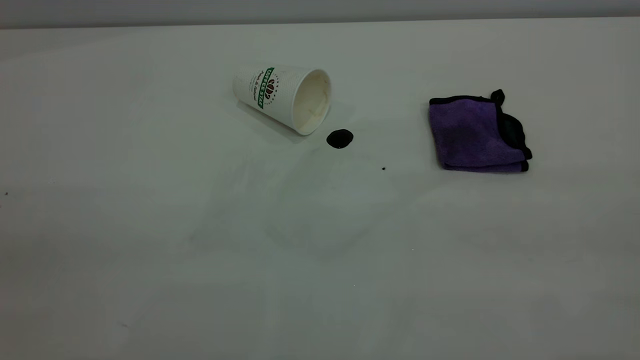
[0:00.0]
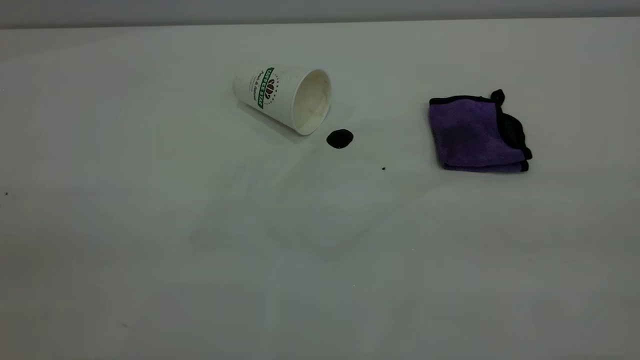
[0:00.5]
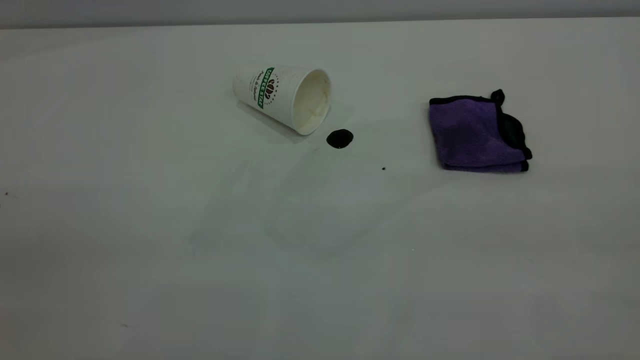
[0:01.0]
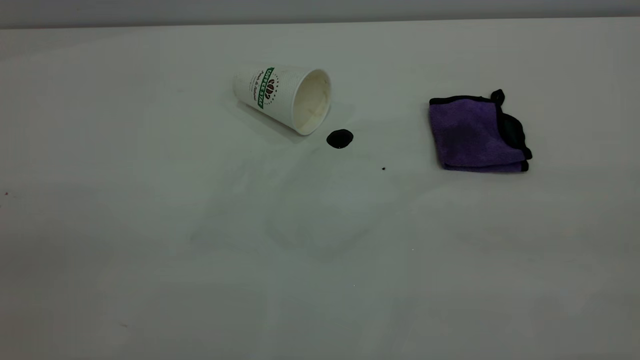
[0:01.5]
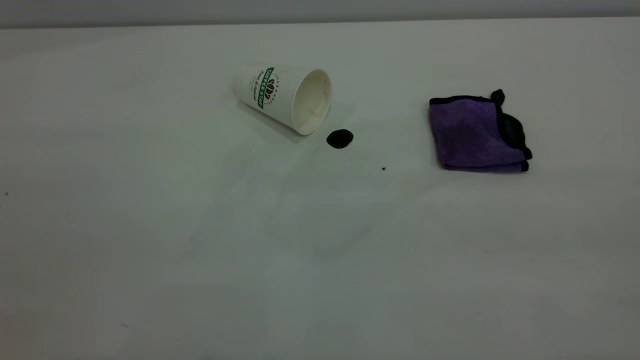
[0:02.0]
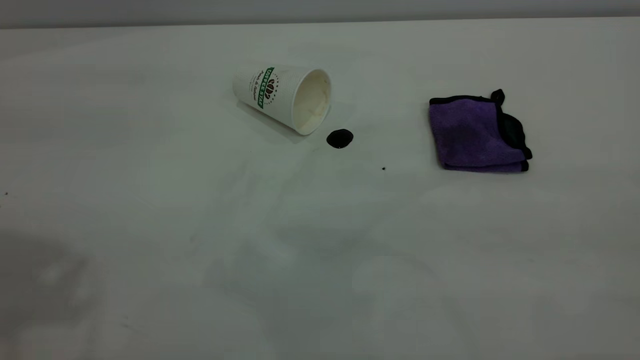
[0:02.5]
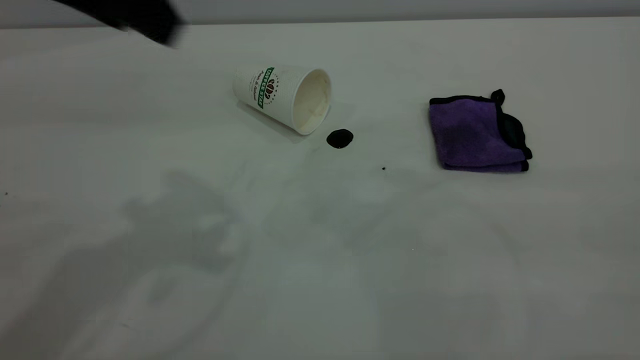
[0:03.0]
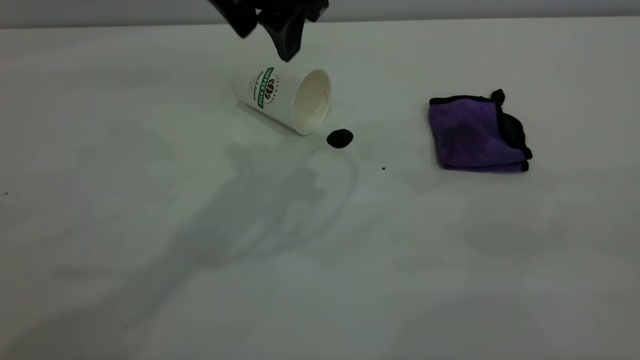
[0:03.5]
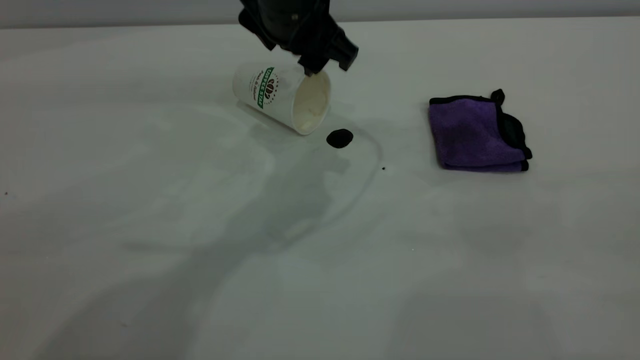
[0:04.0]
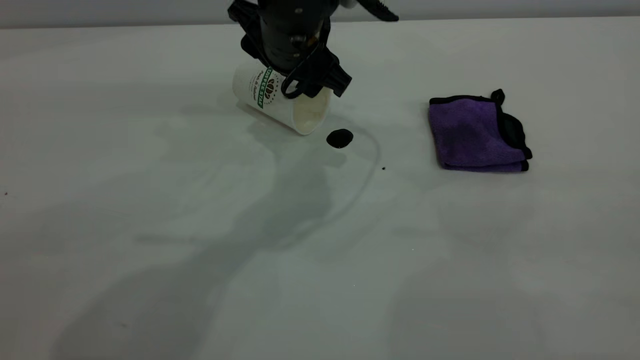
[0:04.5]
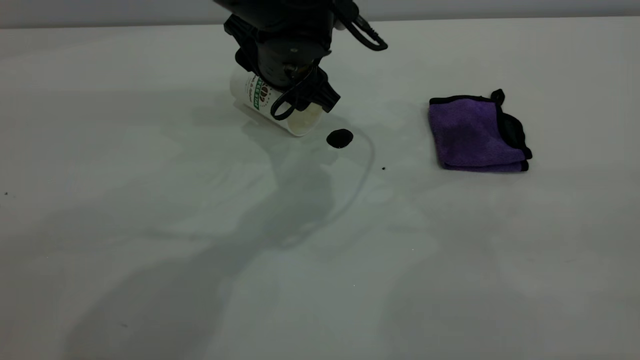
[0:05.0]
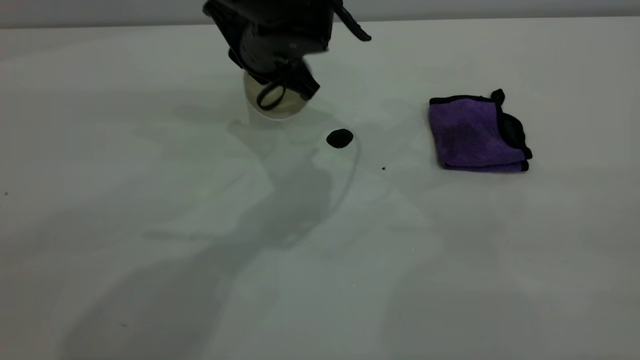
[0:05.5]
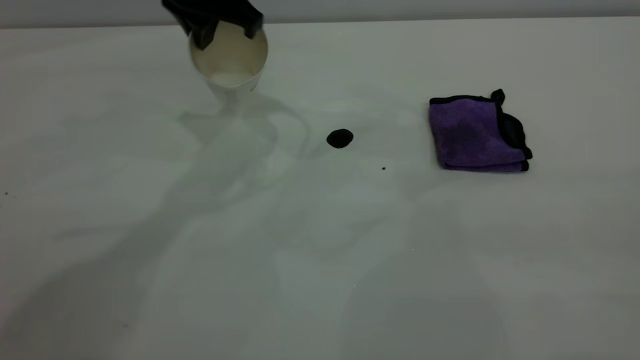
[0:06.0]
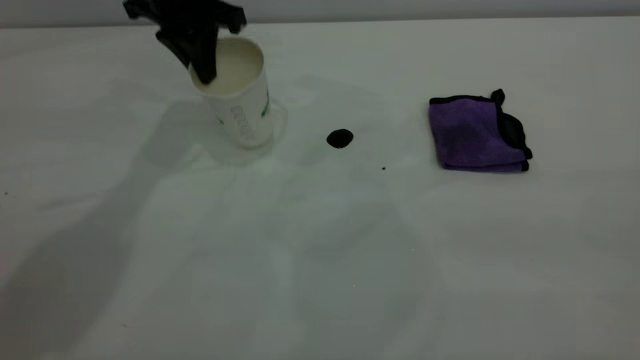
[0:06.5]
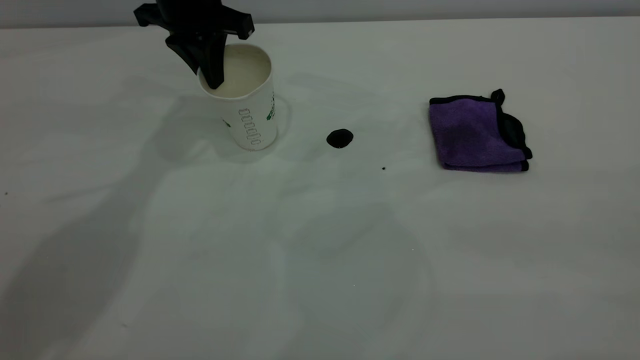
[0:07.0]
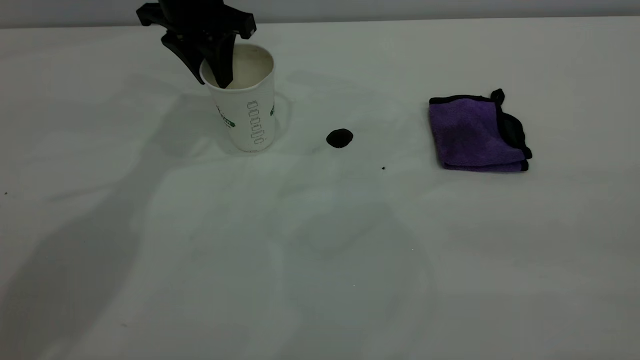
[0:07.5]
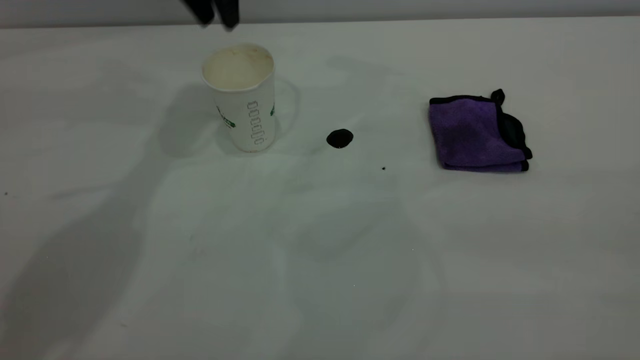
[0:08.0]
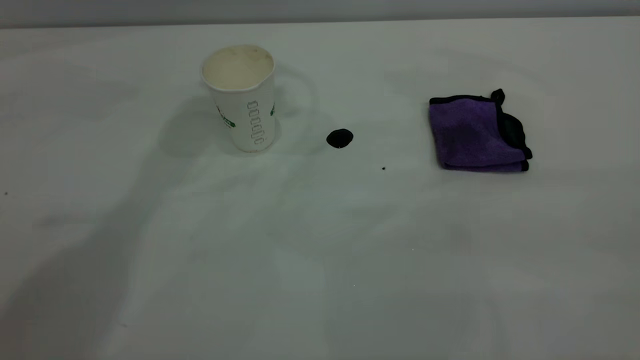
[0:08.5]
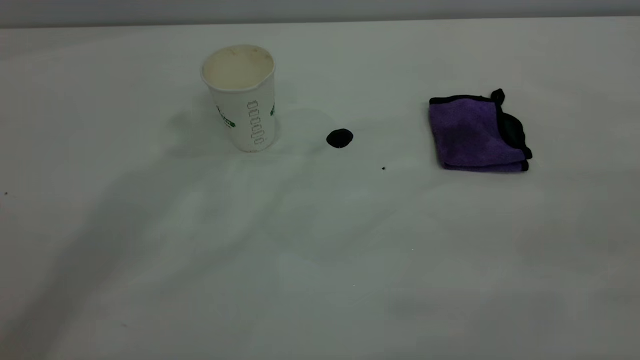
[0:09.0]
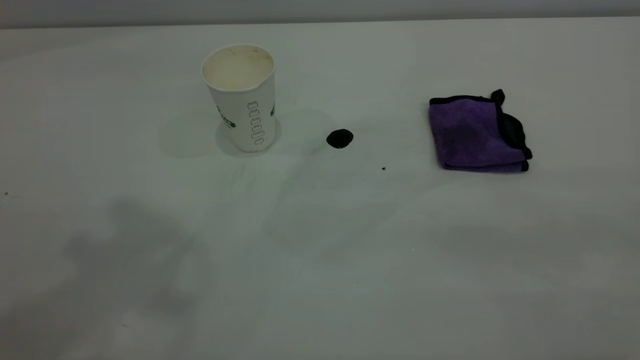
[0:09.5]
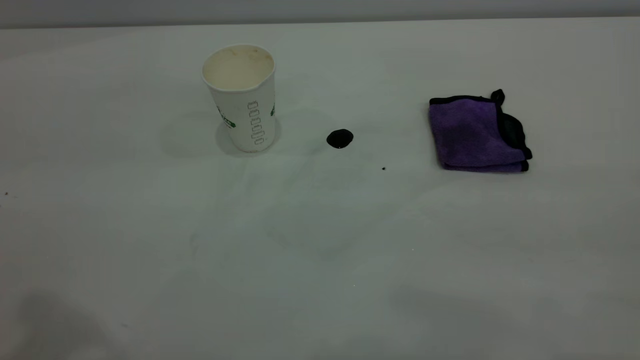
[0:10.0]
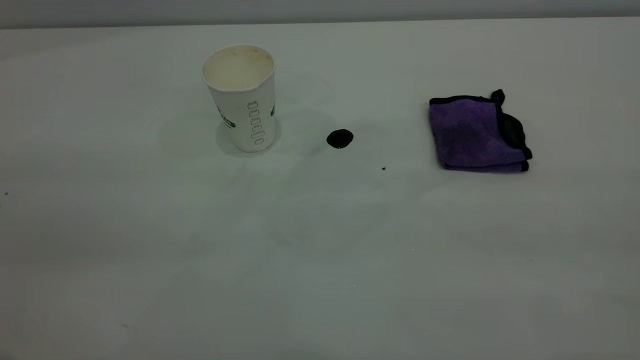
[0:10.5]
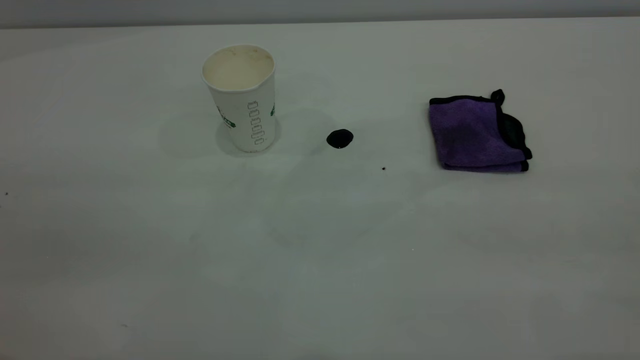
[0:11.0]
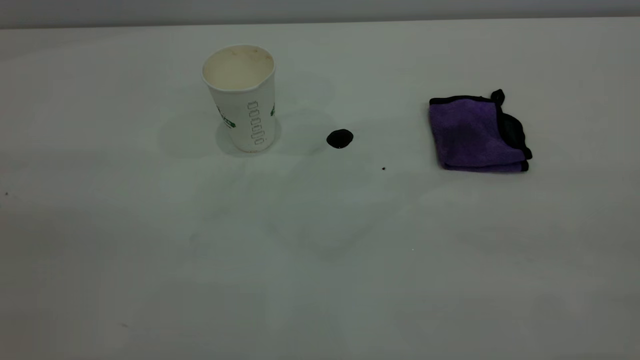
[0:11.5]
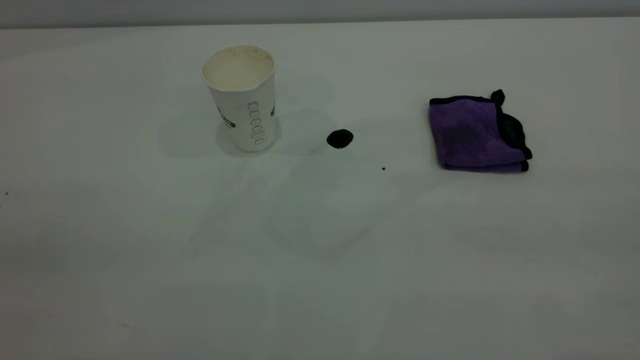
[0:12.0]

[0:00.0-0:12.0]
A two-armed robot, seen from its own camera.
Task of the whole recording: the left gripper pick up the fallen cup and place it upright, the right gripper grasp the purple rag and wipe the coffee stain on the table, the right gripper put the purple rag back in its original position.
Step, 0:00.0 to 0:07.5: Stand the paper cup upright.
0:02.0 to 0:04.0: The left gripper shifts some 50 cm forward, to the right and downward.
0:04.0 to 0:06.0: The left gripper is displaced to the left by some 10 cm, and closes its fingers.
0:06.0 to 0:08.0: The left gripper goes roughly 5 cm forward, and opens its fingers.

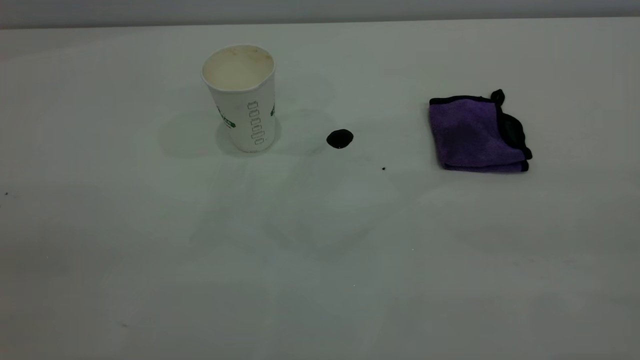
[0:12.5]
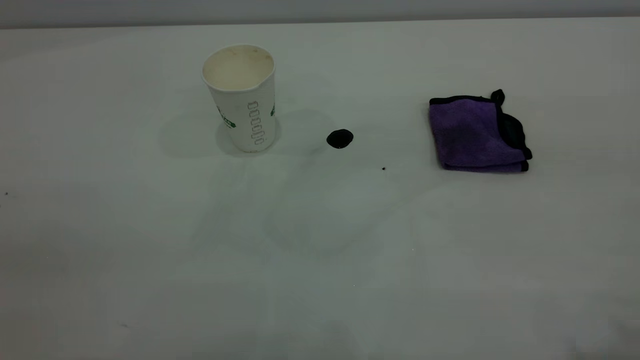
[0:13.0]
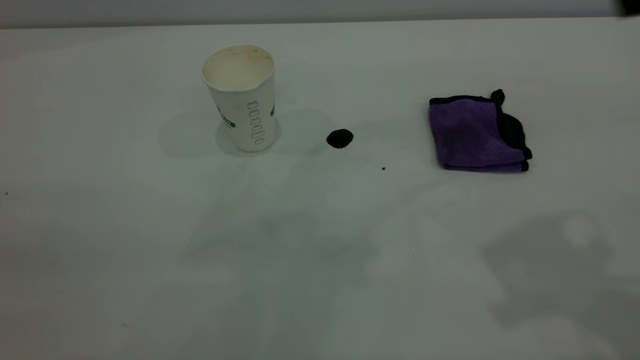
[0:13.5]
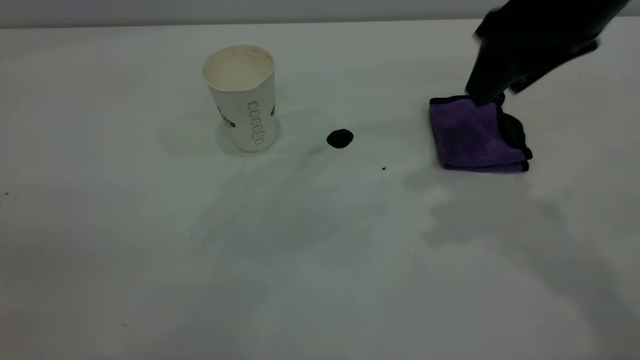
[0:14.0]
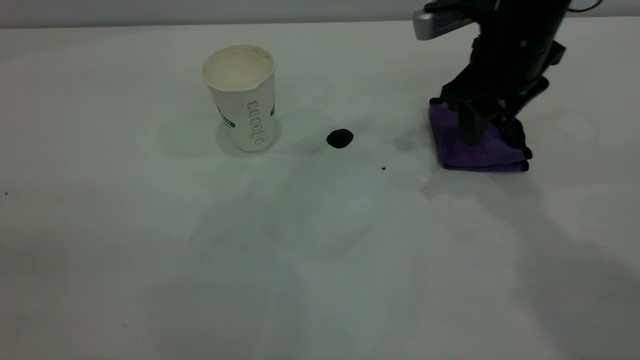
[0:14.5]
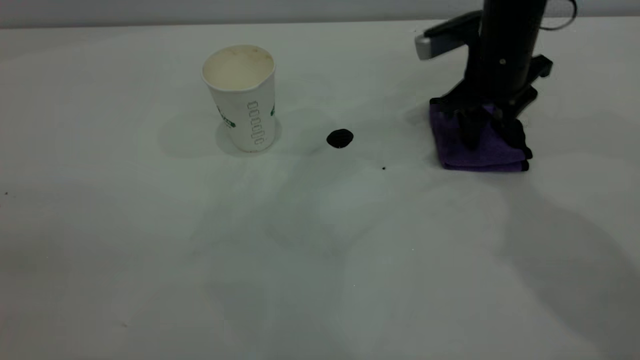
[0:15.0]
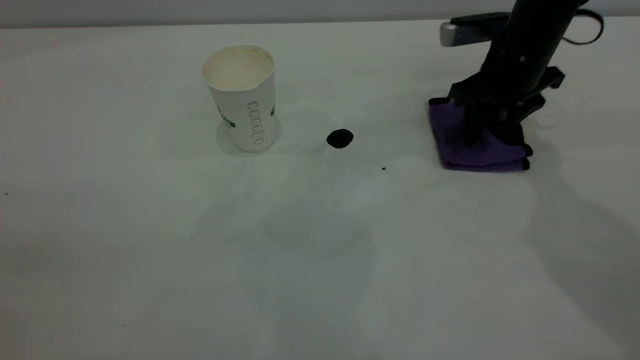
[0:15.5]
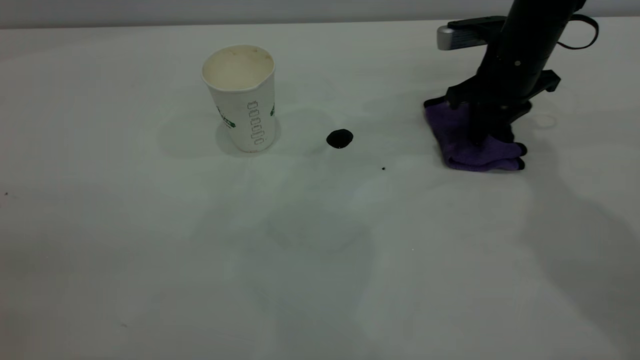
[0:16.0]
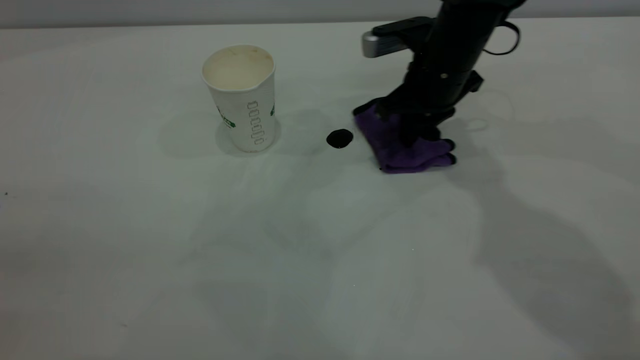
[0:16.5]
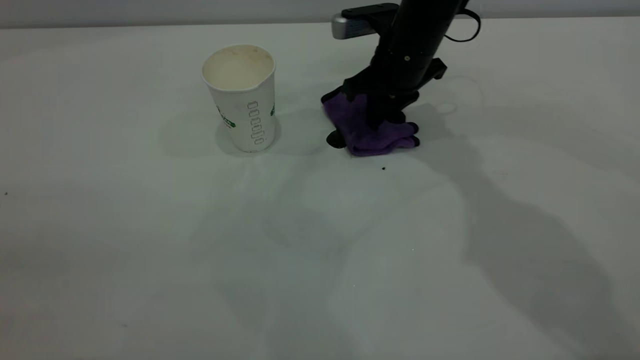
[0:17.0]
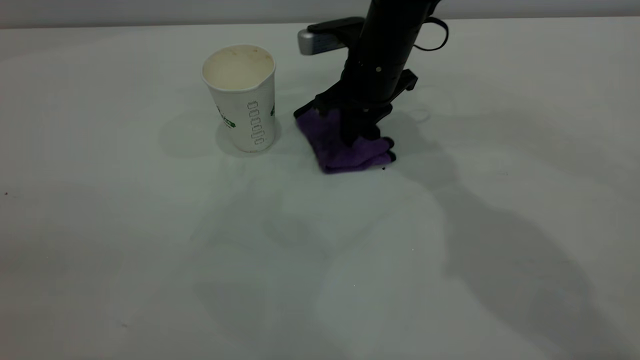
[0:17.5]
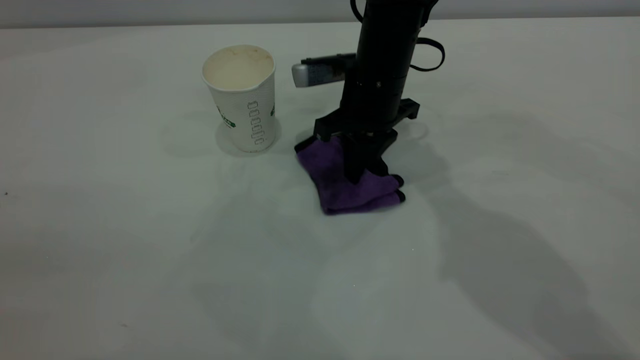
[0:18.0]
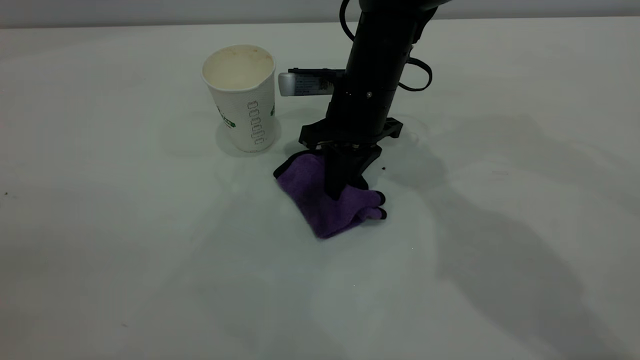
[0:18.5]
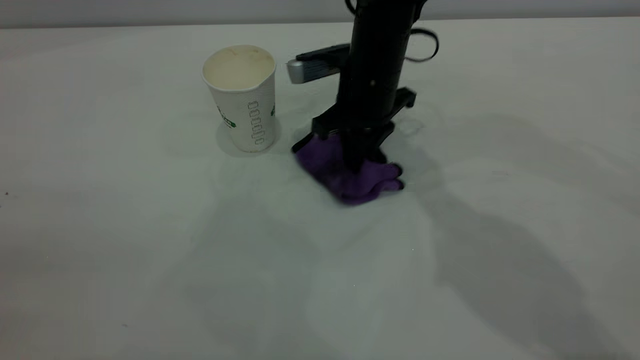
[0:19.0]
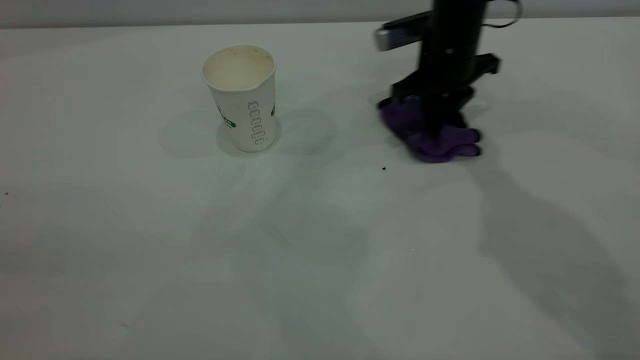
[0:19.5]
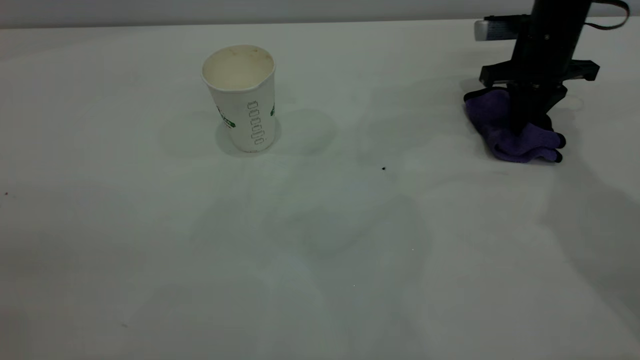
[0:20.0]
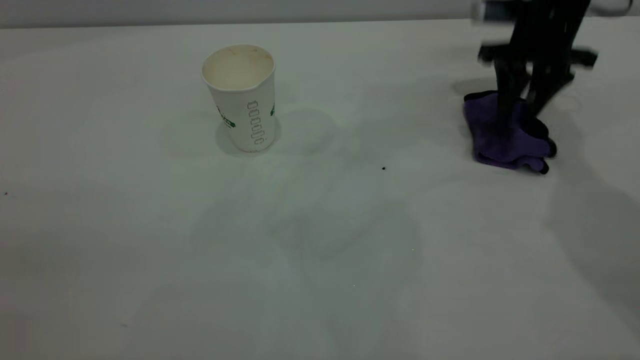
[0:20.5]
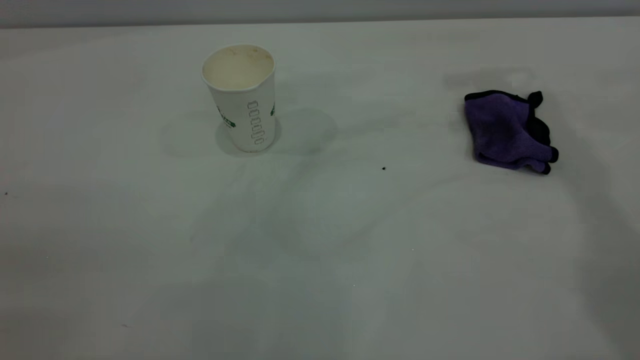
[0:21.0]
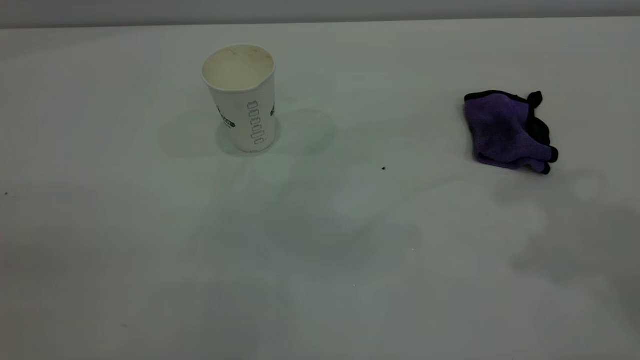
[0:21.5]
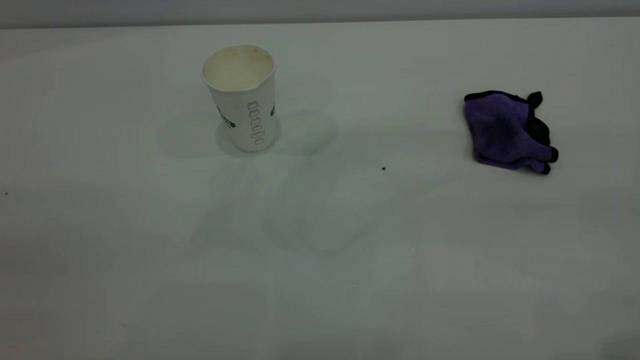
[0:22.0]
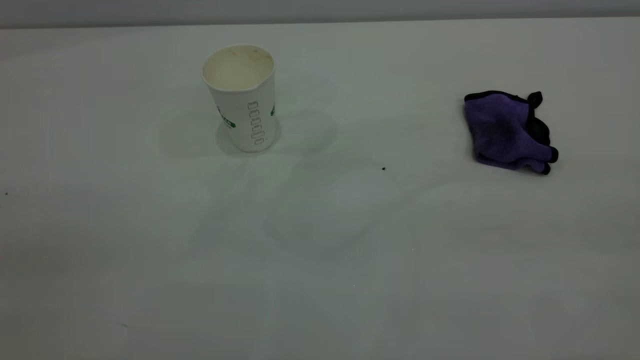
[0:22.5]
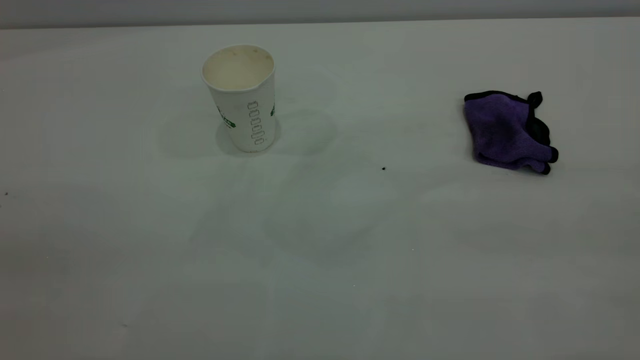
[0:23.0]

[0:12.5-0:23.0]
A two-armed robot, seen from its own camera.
Task of the whole recording: the left gripper pick up the fallen cup and place it upright, the right gripper grasp the purple rag and wipe the coffee stain on the table, the right gripper put the purple rag back in its original position.
Step, 0:12.5 to 0:20.5: Wipe the stains off the table with a rag.
0:12.5 to 0:14.5: The right gripper moves forward and downward, approximately 50 cm.
0:14.5 to 0:16.5: The right gripper travels downward and to the left by some 10 cm, and closes up.
0:16.5 to 0:19.0: The right gripper travels to the left by approximately 5 cm.
0:19.0 to 0:21.0: The right gripper is displaced upward and to the right by roughly 30 cm, and opens up.
